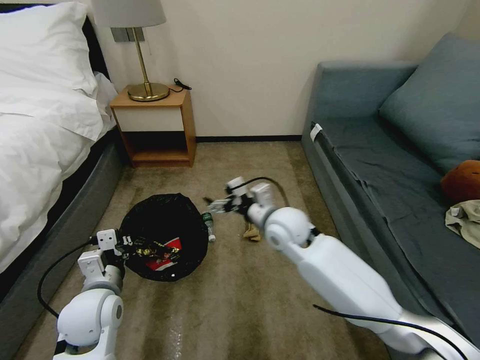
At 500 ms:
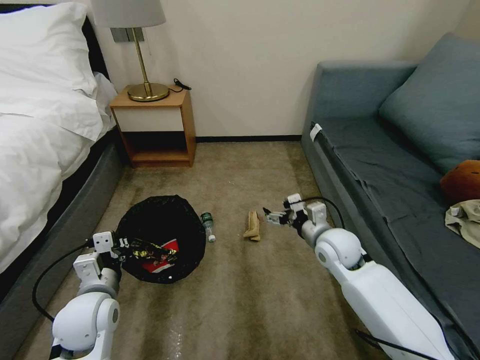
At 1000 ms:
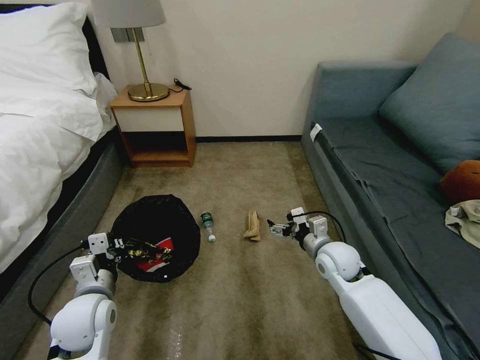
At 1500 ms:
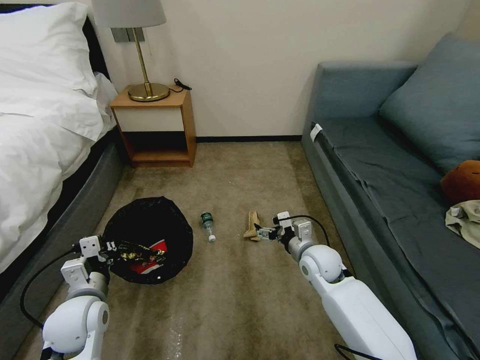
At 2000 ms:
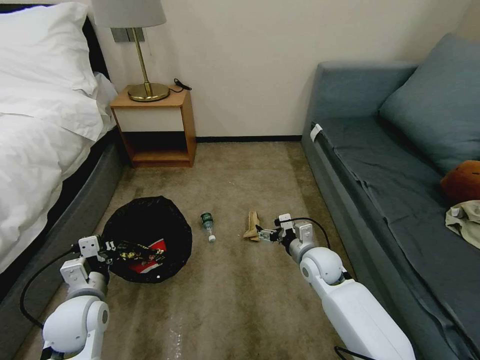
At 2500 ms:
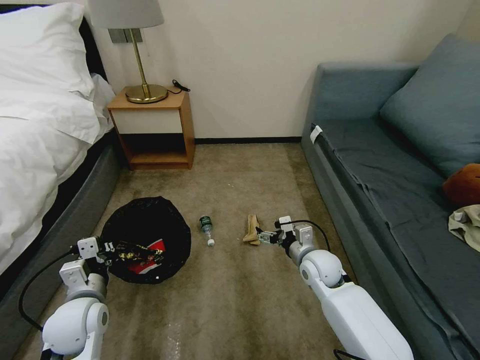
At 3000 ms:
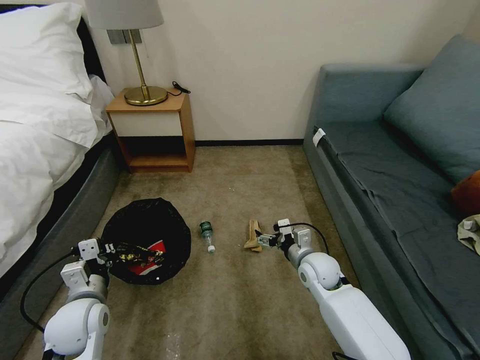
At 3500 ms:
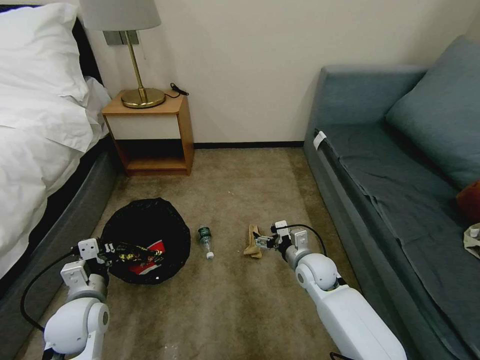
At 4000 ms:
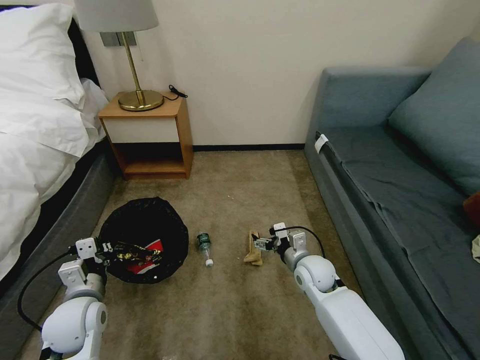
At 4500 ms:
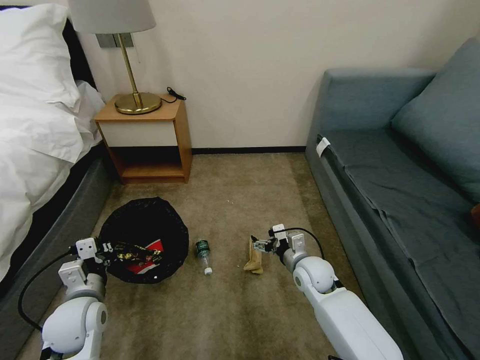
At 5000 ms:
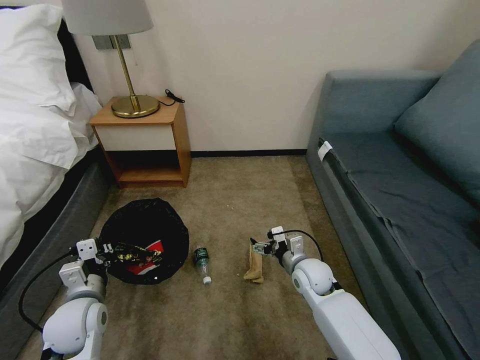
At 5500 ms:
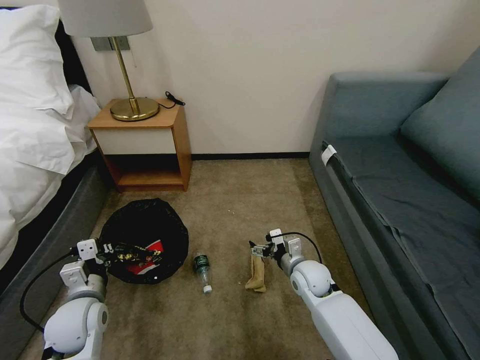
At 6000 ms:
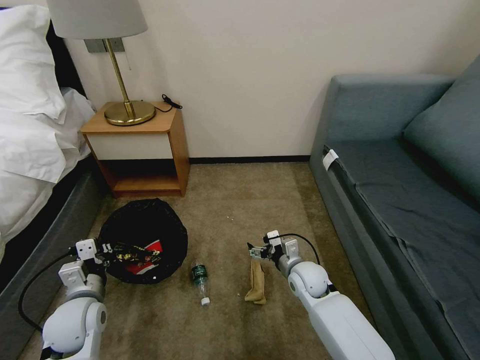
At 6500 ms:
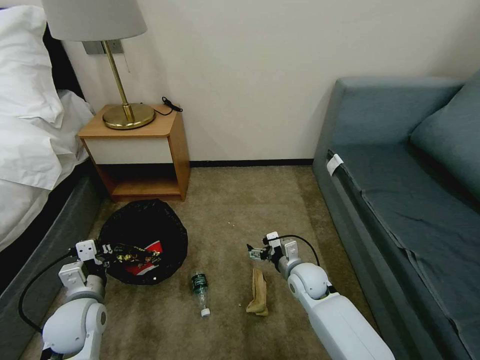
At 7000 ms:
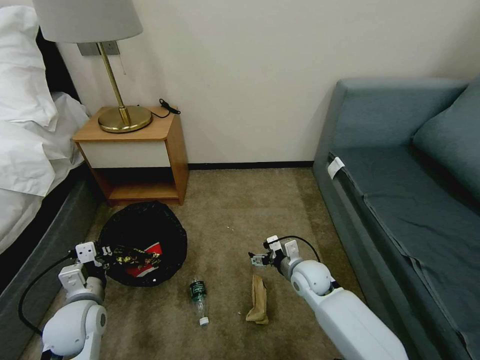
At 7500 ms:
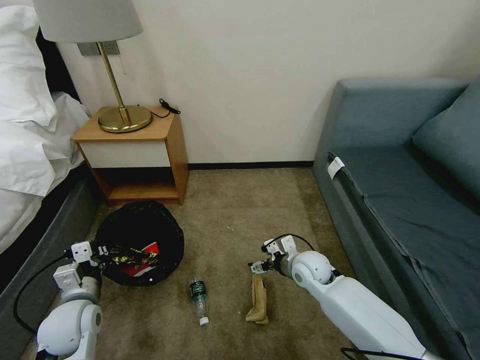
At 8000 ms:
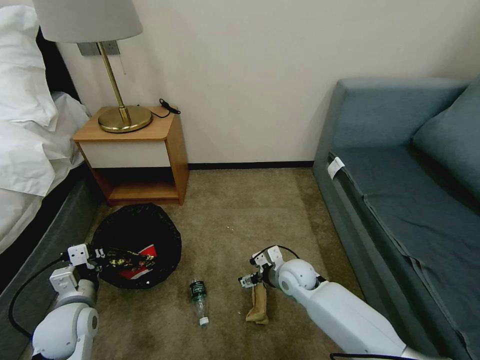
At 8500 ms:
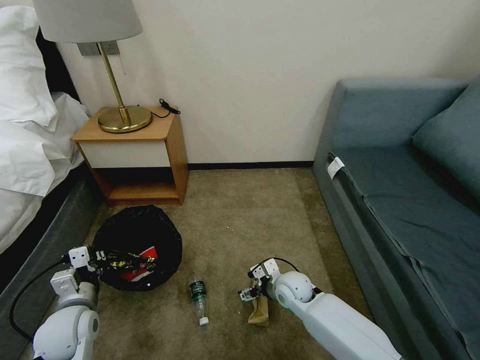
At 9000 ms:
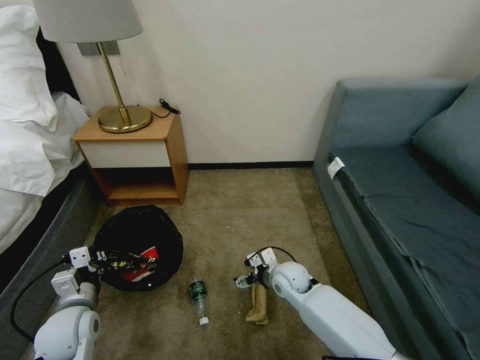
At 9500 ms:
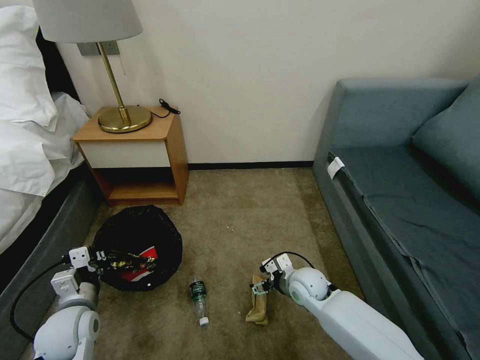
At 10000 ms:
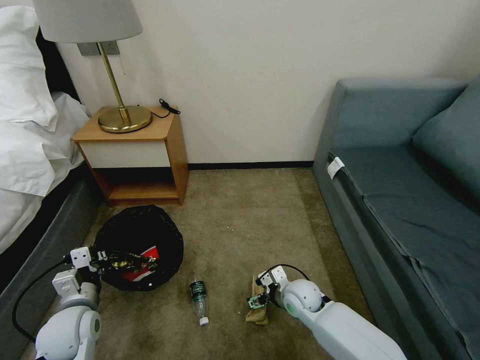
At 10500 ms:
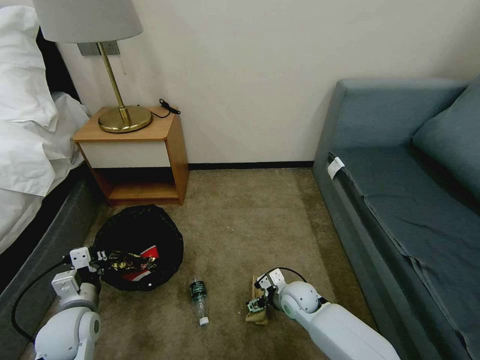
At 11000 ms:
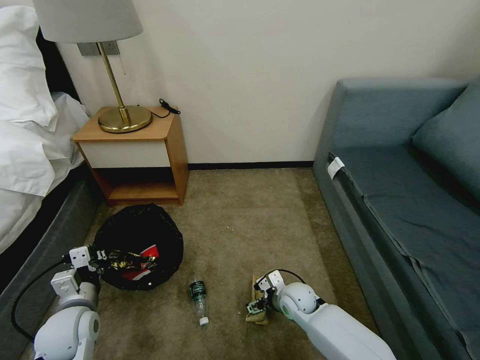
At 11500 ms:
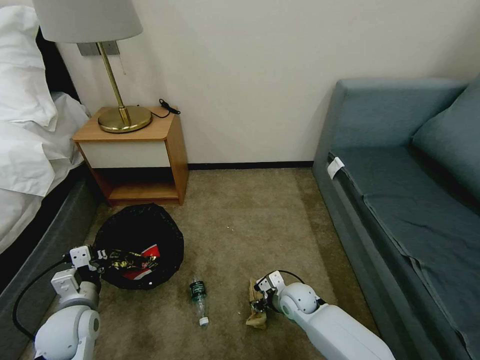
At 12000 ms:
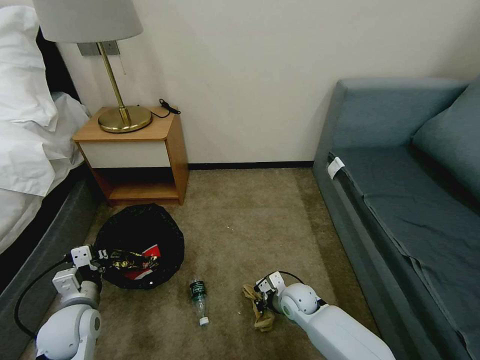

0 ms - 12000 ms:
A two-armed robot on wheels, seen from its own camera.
Task of the whole recording: Pick up the trash bin, then pick up the garbage on the floor and place it into the trash bin.
0 ms - 2000 ms: The right gripper moves downward and to the right, roughly 15 cm.
2000 ms - 4000 ms: There are only small adjustments of the grippers.
8000 ms - 10000 ms: The right gripper changes place by roughly 5 cm.
10000 ms - 12000 ms: The right gripper closes its fingers.

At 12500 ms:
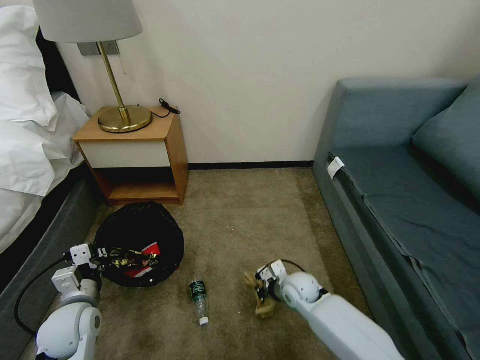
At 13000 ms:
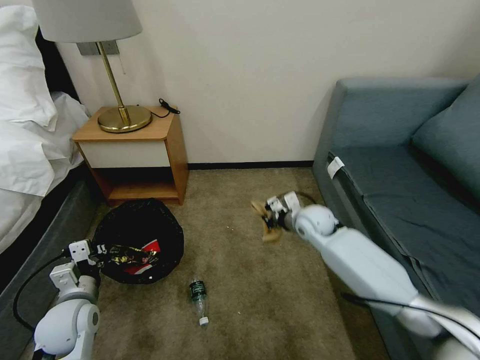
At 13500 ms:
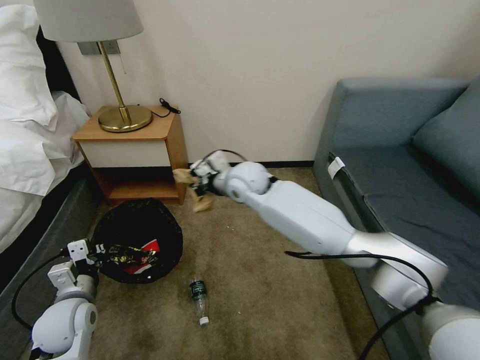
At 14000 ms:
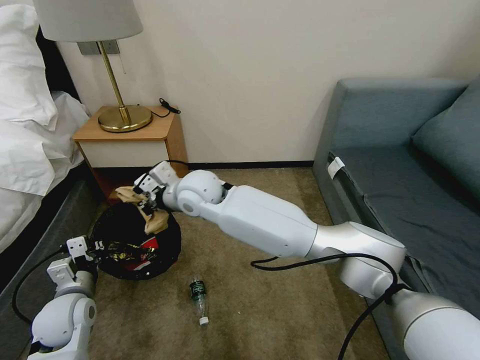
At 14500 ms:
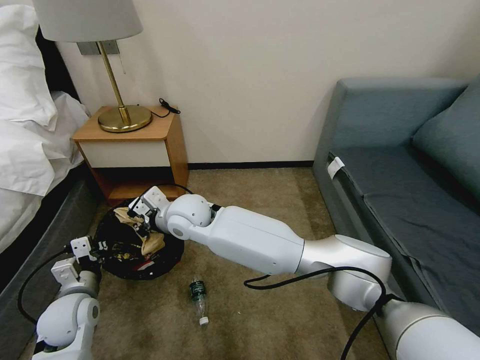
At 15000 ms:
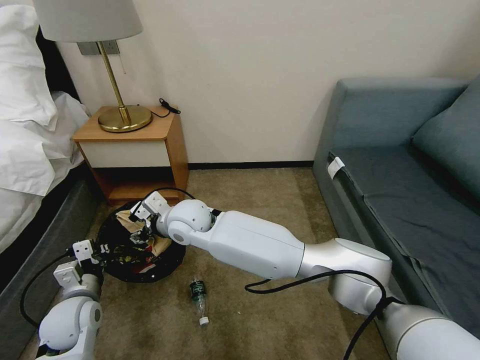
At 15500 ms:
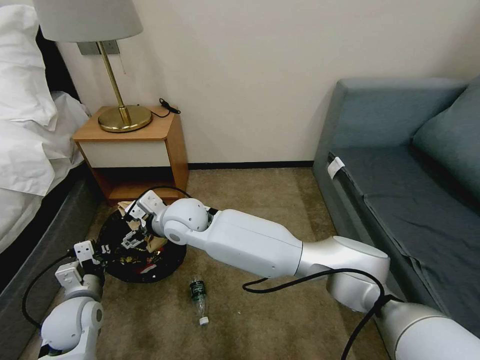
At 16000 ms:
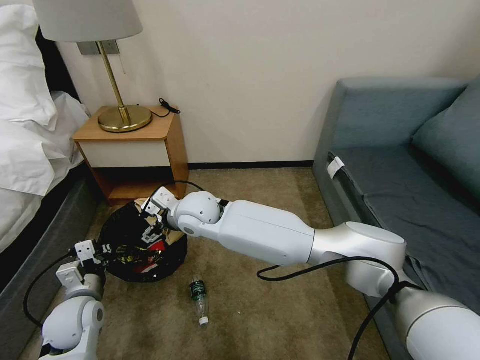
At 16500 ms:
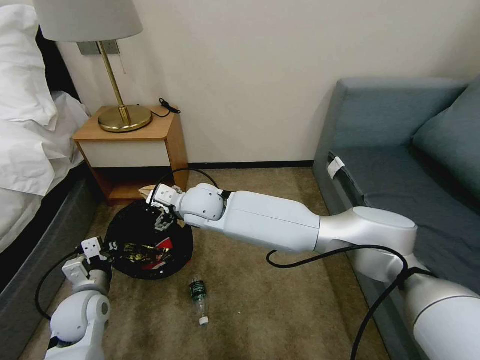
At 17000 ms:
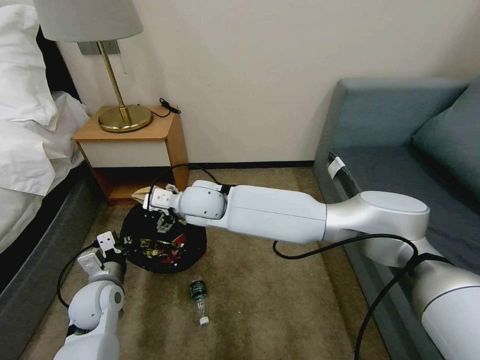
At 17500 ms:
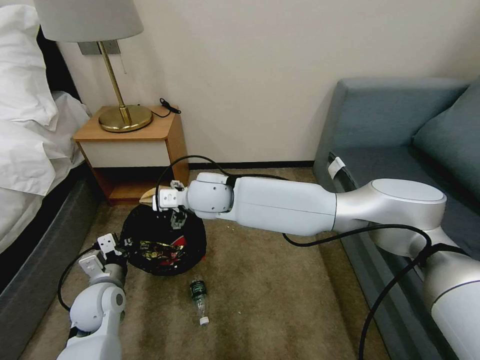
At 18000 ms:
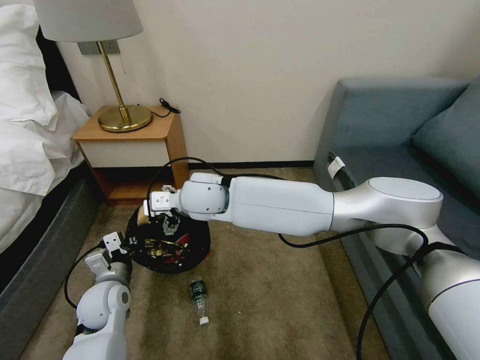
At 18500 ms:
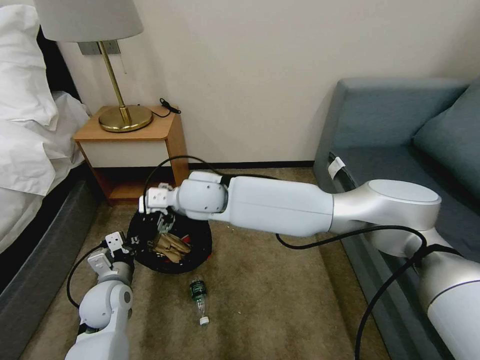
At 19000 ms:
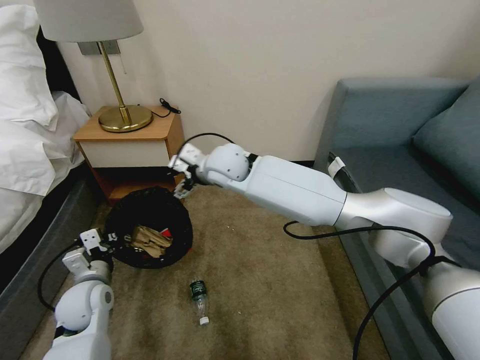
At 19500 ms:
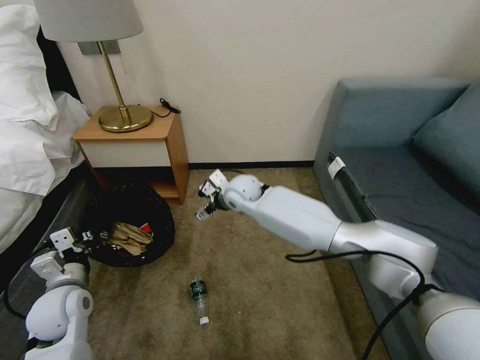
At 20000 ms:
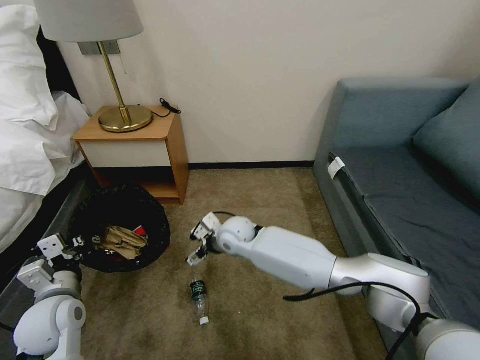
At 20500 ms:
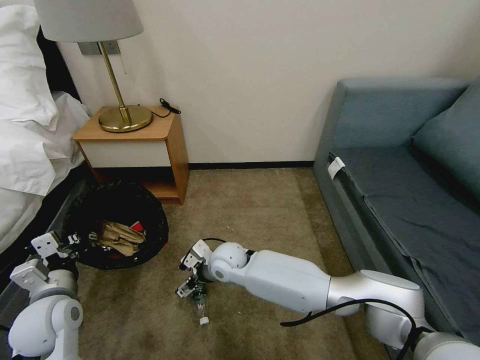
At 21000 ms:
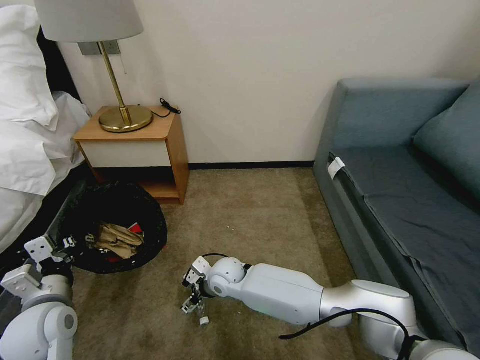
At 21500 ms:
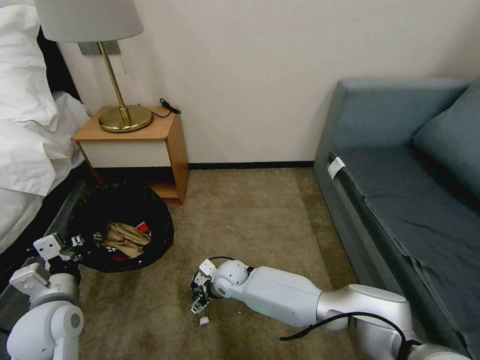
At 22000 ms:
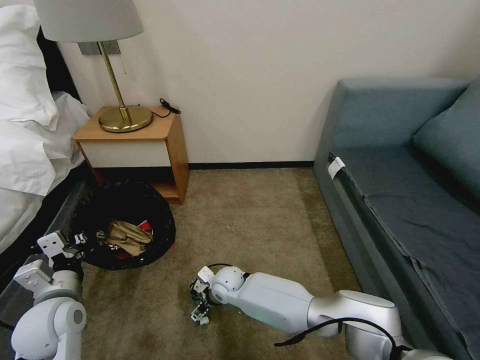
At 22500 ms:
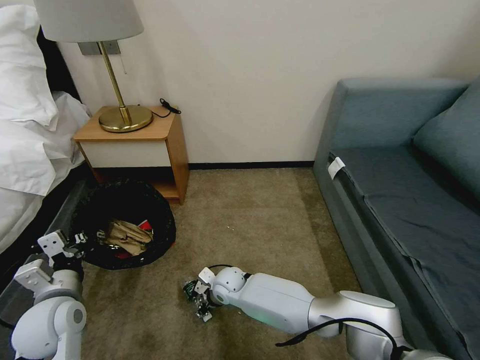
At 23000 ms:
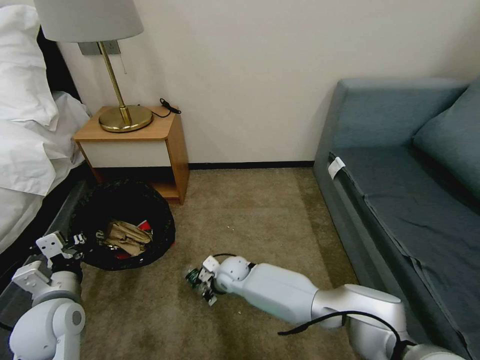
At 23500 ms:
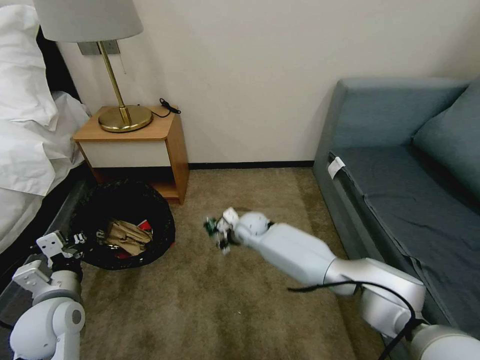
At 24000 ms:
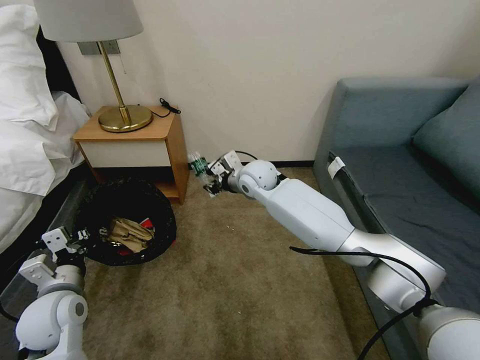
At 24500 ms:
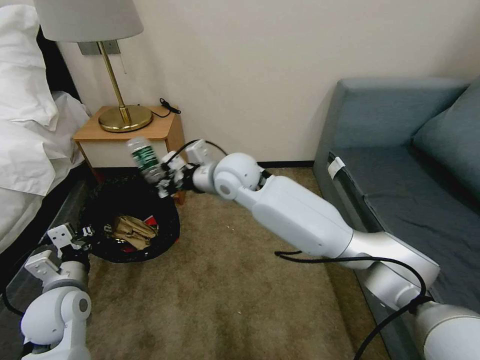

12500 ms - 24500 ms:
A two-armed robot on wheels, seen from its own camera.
Task of the whole recording: Pick up the trash bin, then pick up the garbage on the floor and place it into the trash bin.
12500 ms - 14500 ms: The right gripper is displaced to the left and upward by about 40 cm.
14500 ms - 16500 ms: The right gripper opens its fingers.
16500 ms - 18500 ms: The right gripper goes about 5 cm upward.
18500 ms - 20500 ms: The right gripper travels downward by approximately 20 cm. The left gripper is displaced upward, backward and to the left by approximately 10 cm.
20500 ms - 22500 ms: The right gripper moves downward, about 10 cm, and closes.
22500 ms - 24500 ms: The right gripper moves upward, about 35 cm.

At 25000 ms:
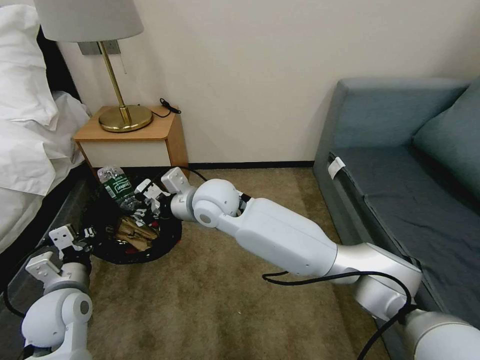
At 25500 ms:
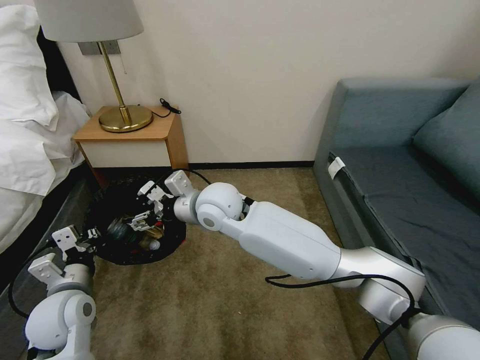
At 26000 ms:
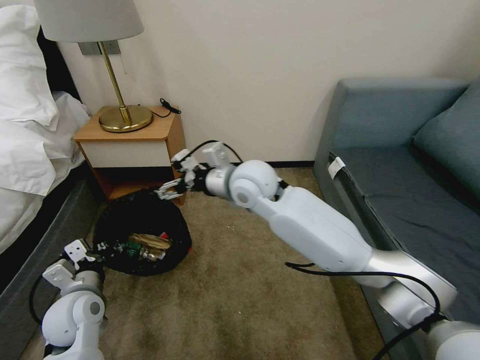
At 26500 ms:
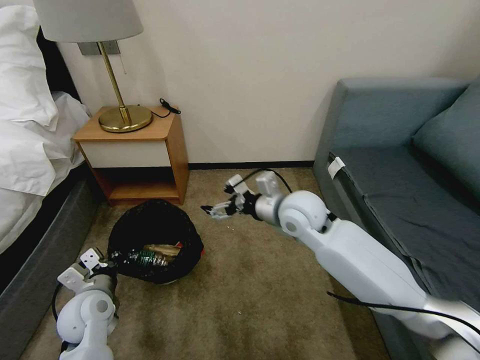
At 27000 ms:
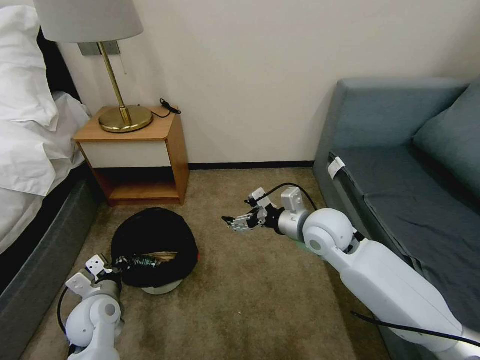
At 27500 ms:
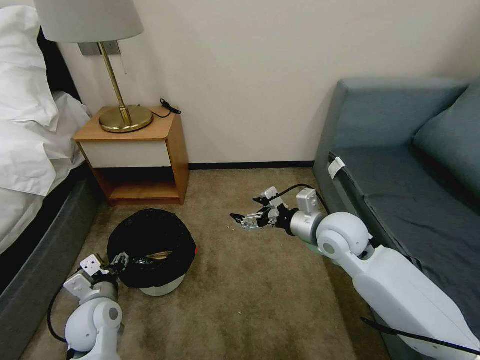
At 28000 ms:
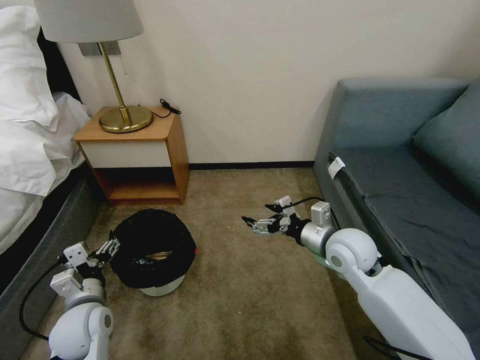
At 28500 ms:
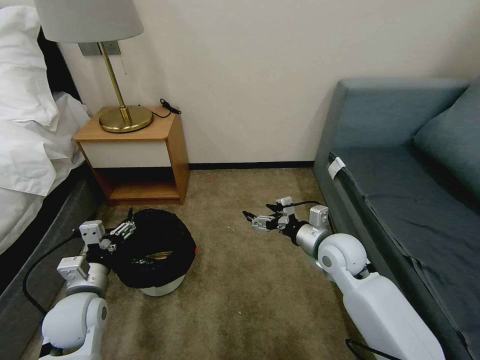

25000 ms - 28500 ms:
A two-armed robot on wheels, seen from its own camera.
Task of the whole recording: Pick up the trash bin, then pick up the garbage on the floor and place it into the trash bin.
25000 ms - 27000 ms: The left gripper shifts about 10 cm downward; the right gripper is displaced to the right by some 25 cm, and opens its fingers.
27000 ms - 28500 ms: The left gripper shifts by some 5 cm, and opens its fingers. Meanwhile the right gripper moves downward, approximately 5 cm.
